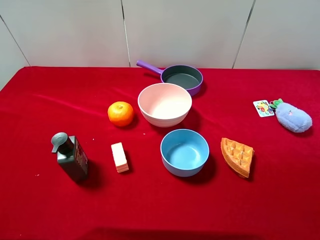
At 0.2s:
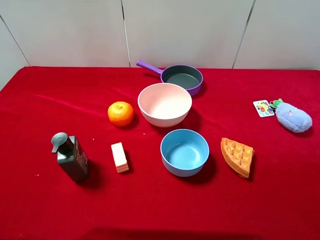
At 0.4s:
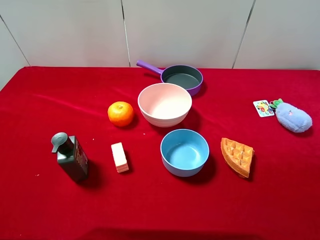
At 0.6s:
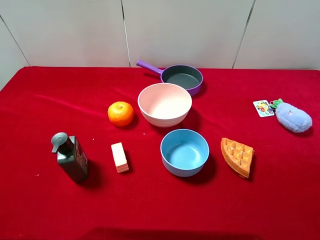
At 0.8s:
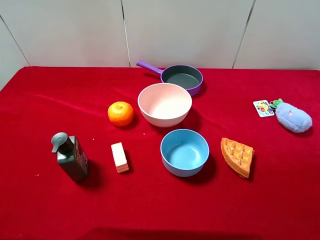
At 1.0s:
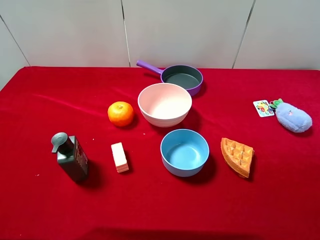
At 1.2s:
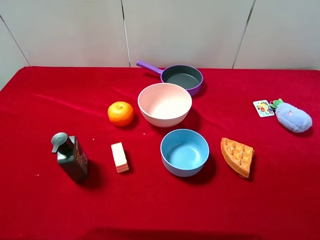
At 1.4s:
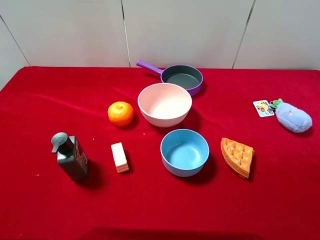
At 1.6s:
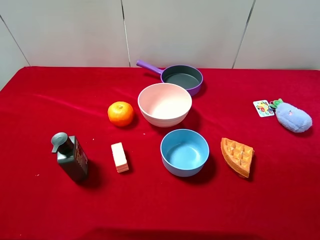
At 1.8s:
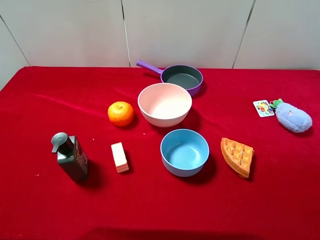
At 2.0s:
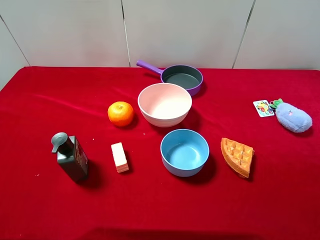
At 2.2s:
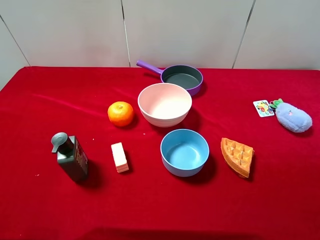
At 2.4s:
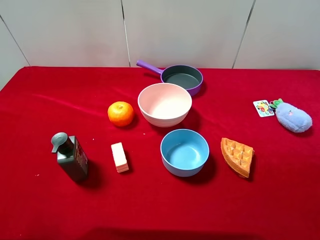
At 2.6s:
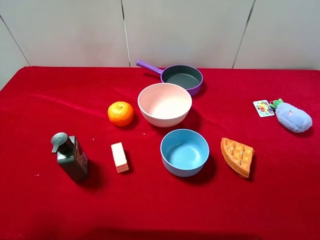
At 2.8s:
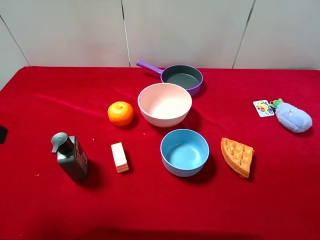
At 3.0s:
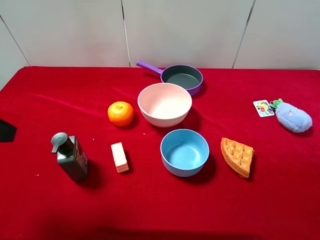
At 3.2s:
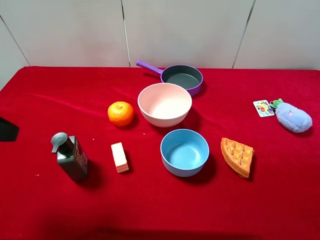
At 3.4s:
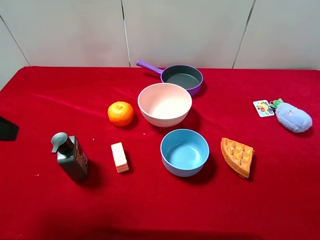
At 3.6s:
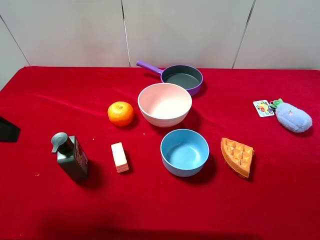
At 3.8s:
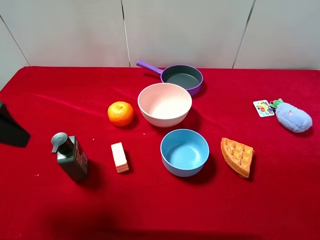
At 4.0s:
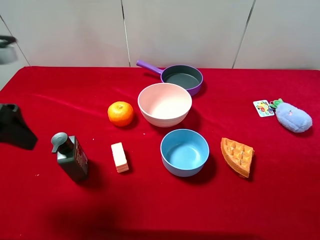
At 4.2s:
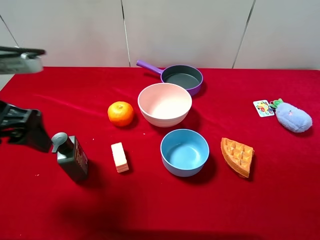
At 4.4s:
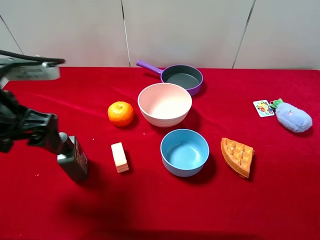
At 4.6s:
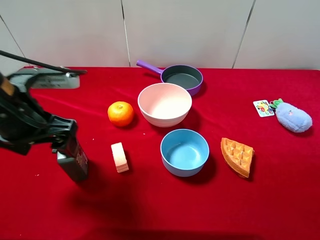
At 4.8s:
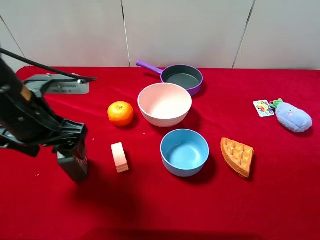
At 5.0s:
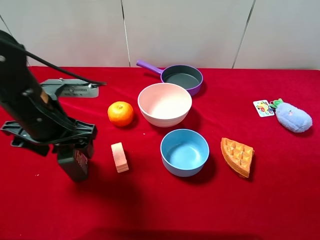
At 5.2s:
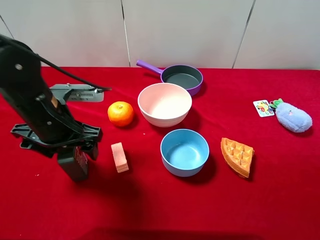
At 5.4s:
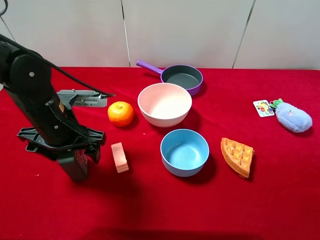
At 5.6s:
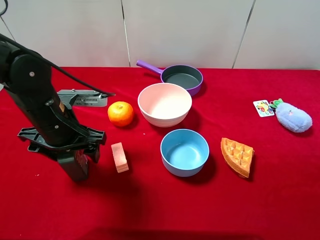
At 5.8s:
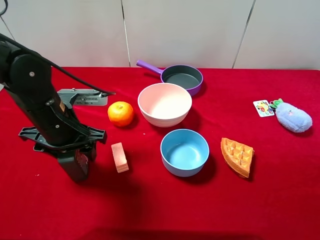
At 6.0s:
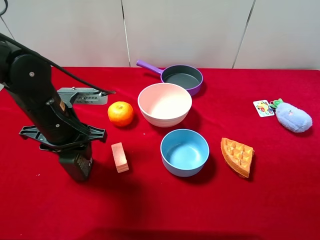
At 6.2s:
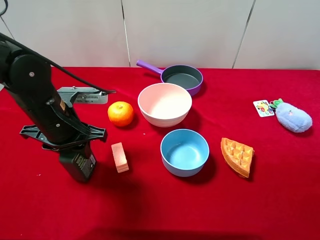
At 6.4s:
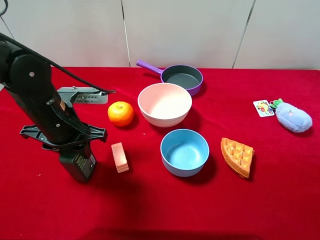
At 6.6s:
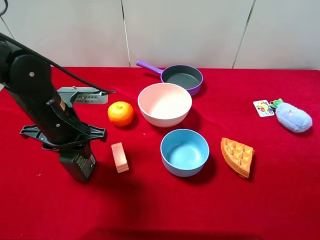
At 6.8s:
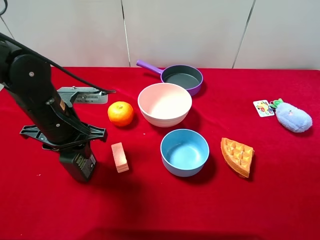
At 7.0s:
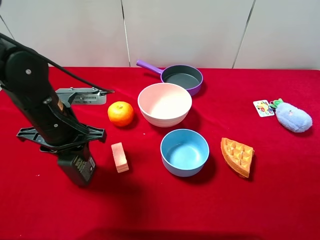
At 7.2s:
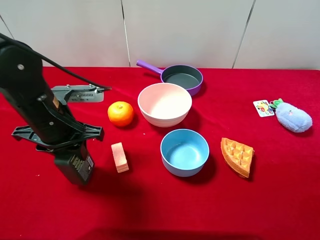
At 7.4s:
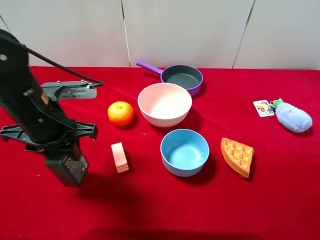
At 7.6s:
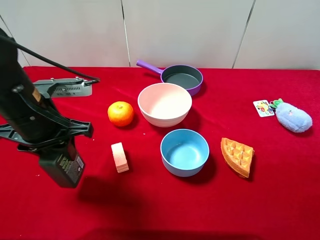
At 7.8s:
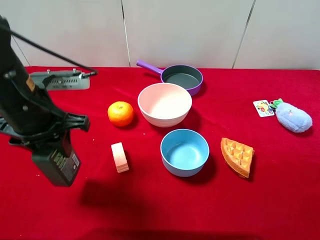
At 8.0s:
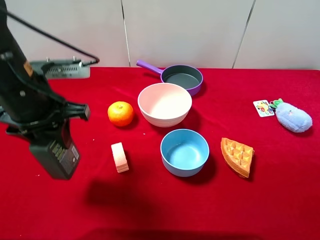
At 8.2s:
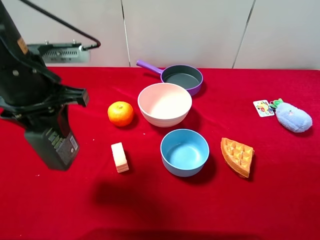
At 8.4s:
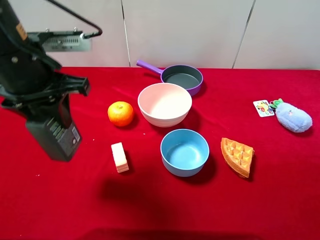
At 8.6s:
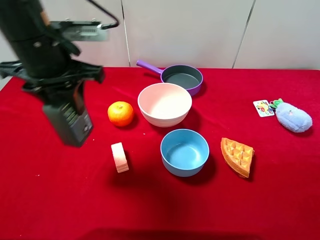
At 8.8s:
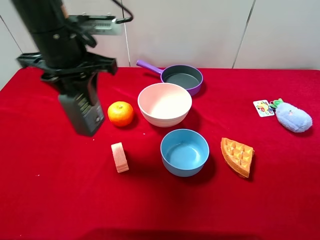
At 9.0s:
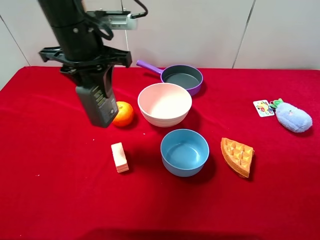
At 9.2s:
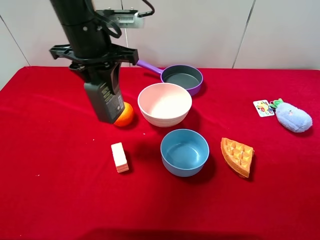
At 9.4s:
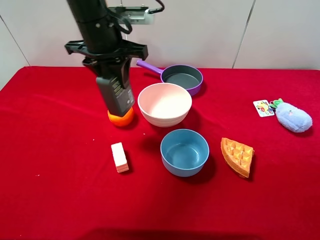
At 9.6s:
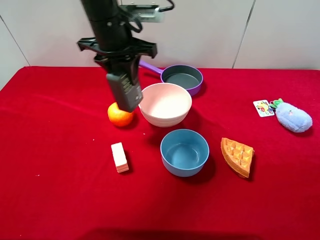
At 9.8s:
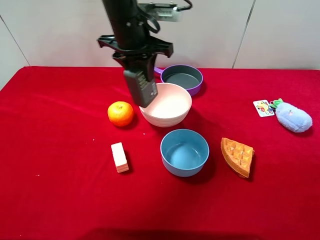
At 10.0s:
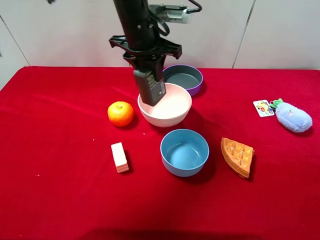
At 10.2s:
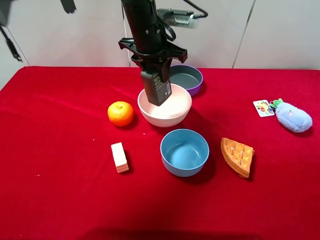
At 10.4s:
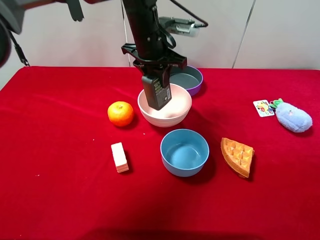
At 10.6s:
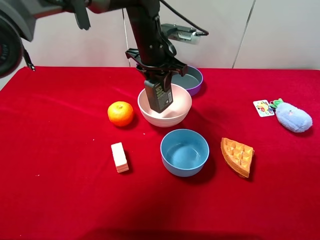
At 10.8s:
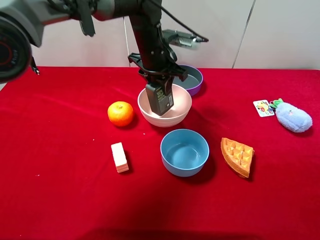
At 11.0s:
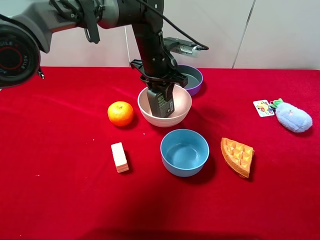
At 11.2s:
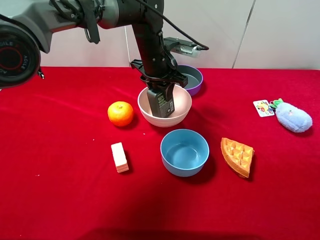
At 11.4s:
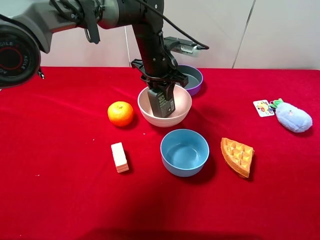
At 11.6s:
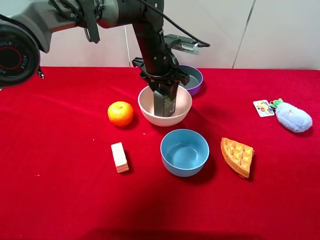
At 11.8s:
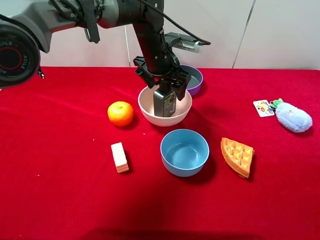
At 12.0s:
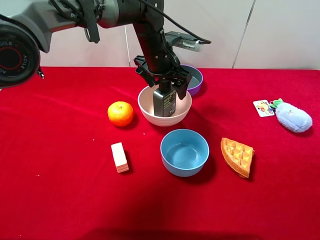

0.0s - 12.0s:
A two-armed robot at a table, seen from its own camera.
Task of the whole recording: pick up an item with a gripper and place it in a random container on the desktop.
0.0s - 1.6s: Both grippers stay about where they are.
1.6s - 3.0s: The left gripper heads forward, covering about 15 cm.
3.0s - 4.4s: The left gripper is displaced to the right and forward by about 10 cm.
4.4s - 6.0s: The left gripper travels downward and forward by some 10 cm, and closes.
6.0s - 7.6s: The left gripper shifts by approximately 5 cm.
7.6s - 9.0s: The left gripper is displaced forward, upward and to the right by roughly 15 cm.
9.0s - 10.4s: The left gripper shifts approximately 15 cm to the right, forward and downward.
10.4s - 12.0s: The left gripper opens up.

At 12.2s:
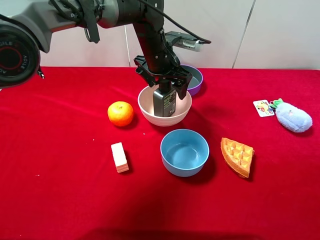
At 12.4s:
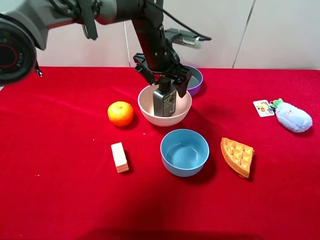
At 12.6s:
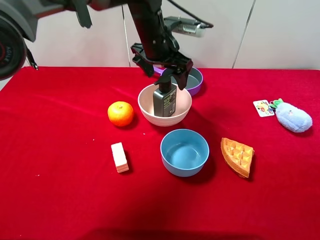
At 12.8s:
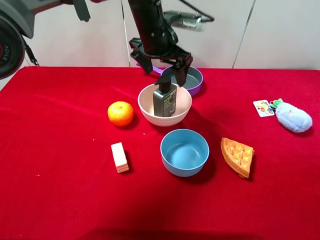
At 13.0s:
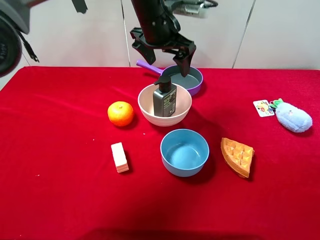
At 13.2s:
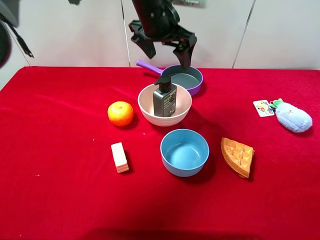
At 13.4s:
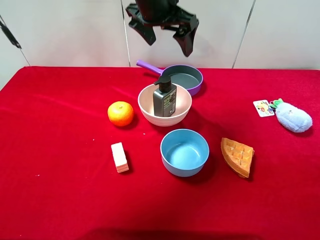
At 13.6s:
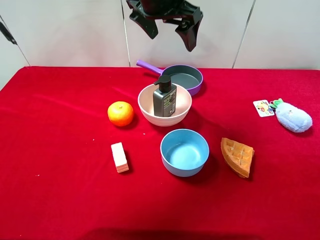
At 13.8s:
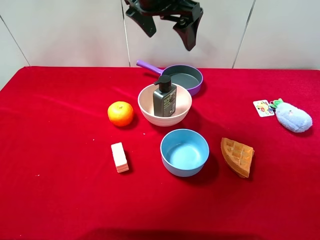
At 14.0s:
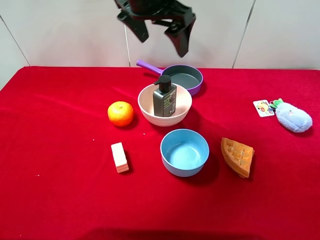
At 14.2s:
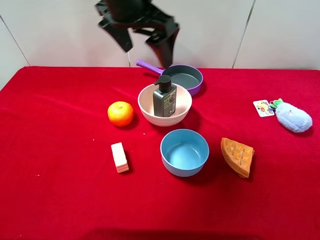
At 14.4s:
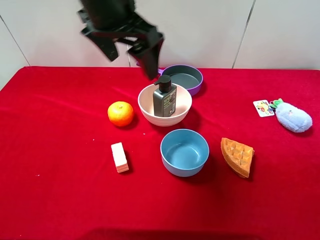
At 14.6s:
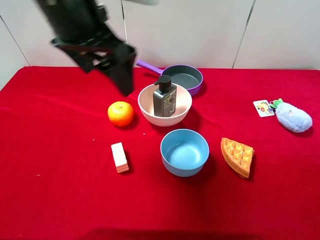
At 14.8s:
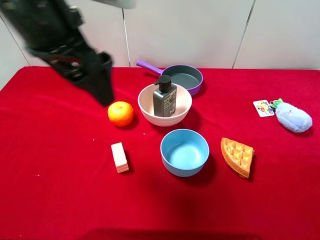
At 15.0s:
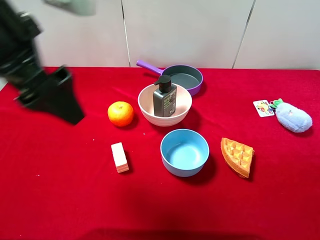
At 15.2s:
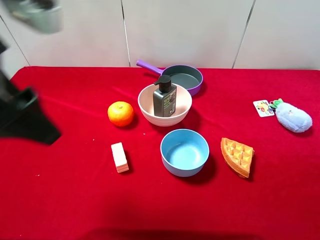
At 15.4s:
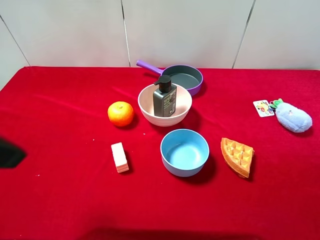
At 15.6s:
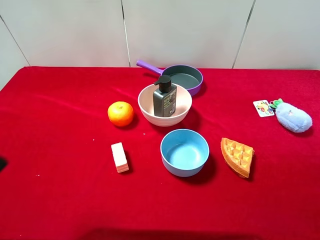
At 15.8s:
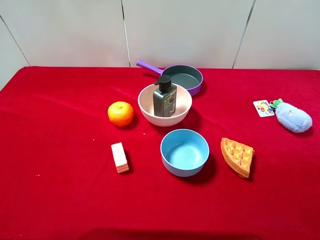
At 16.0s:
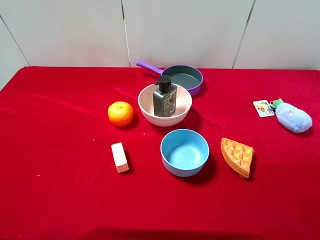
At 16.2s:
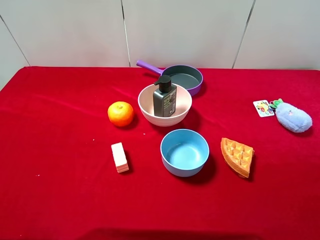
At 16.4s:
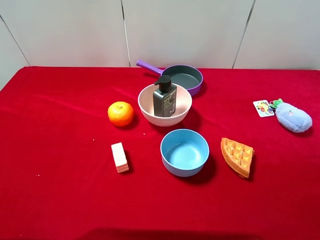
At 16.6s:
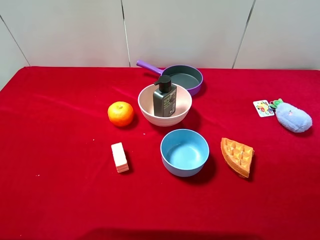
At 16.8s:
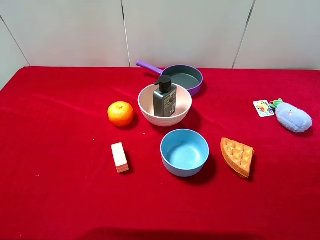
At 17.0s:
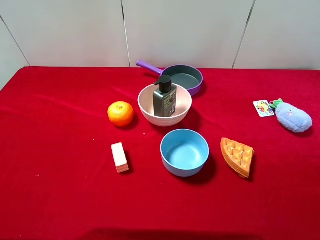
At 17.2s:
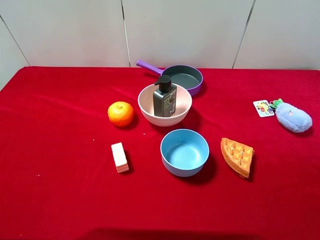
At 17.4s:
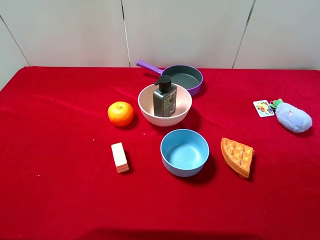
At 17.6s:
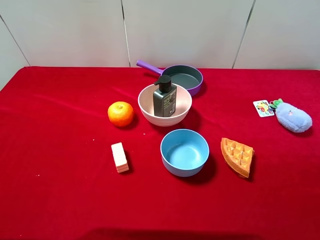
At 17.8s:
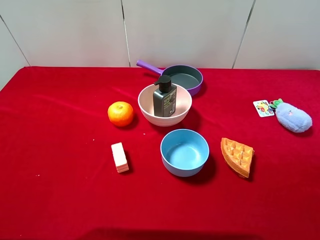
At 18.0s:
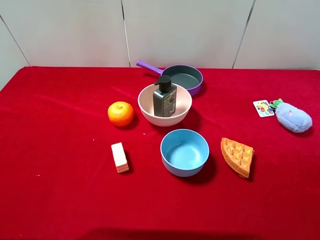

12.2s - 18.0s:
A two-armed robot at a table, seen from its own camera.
Task of the whole recording: pick up an item with a gripper and place it in a random container on the desktop.
12.2s - 13.6s: The left gripper heads upward, covering roughly 15 cm.
13.6s - 15.0s: The left gripper travels backward and to the left by roughly 25 cm.
15.0s - 16.6s: The left gripper heads backward, to the left and downward, covering roughly 25 cm.

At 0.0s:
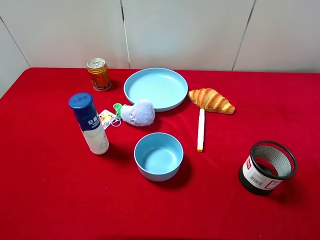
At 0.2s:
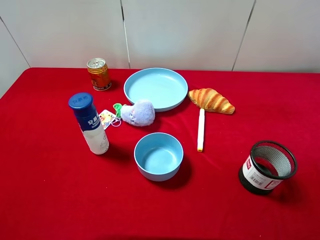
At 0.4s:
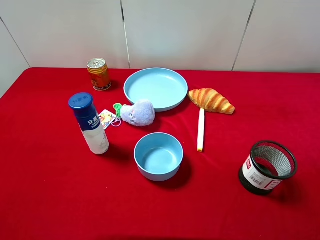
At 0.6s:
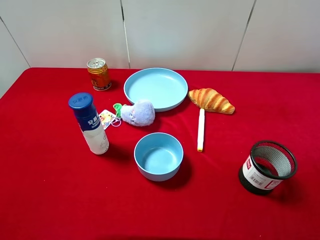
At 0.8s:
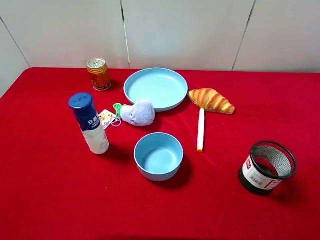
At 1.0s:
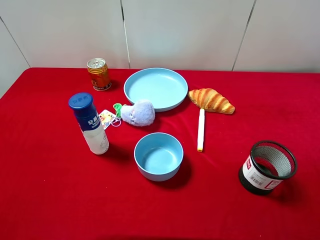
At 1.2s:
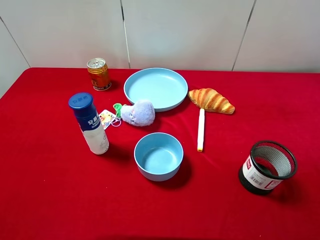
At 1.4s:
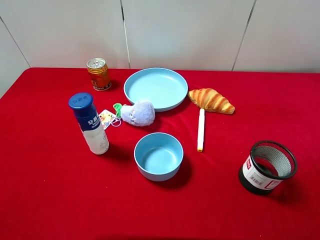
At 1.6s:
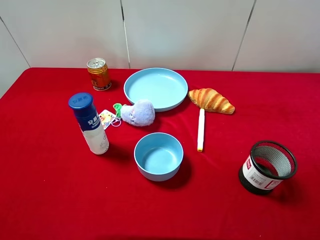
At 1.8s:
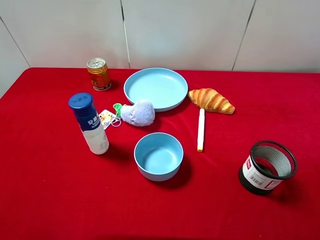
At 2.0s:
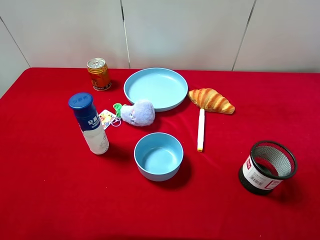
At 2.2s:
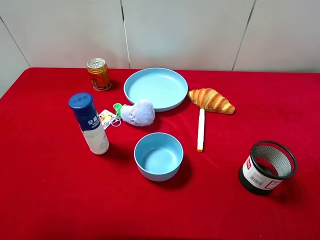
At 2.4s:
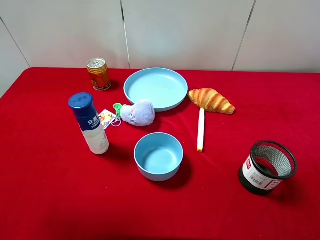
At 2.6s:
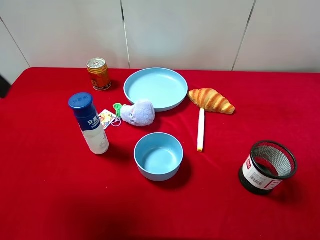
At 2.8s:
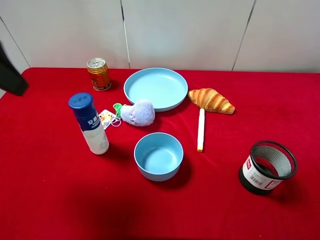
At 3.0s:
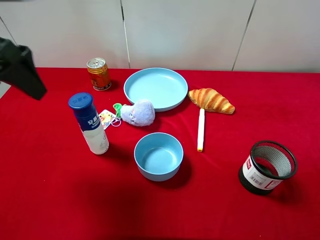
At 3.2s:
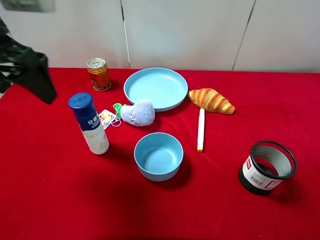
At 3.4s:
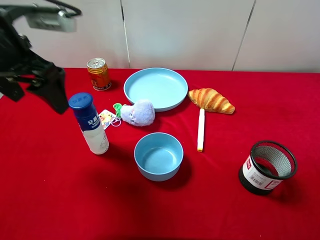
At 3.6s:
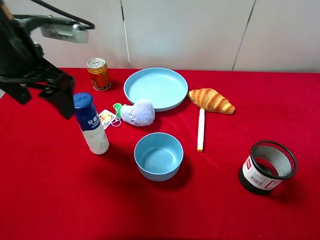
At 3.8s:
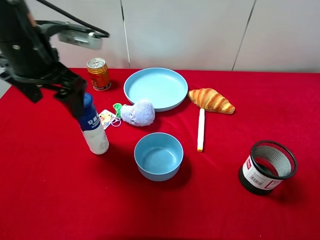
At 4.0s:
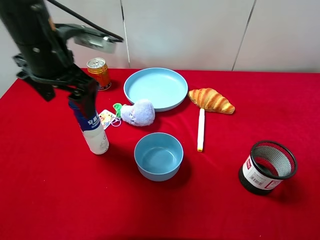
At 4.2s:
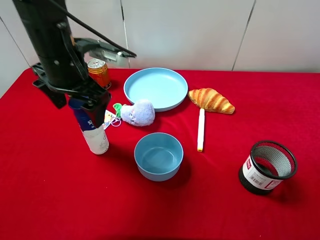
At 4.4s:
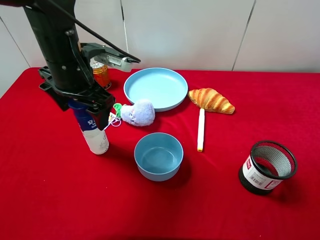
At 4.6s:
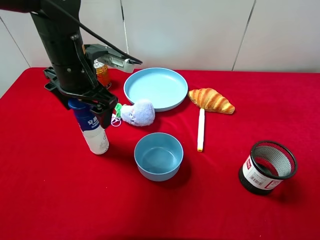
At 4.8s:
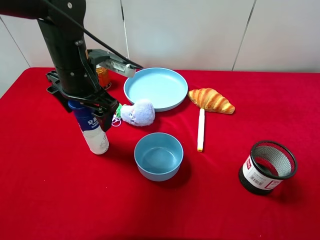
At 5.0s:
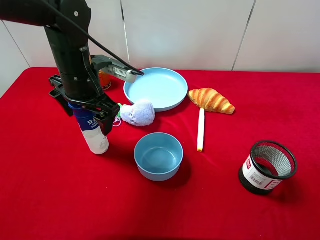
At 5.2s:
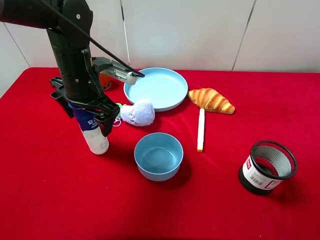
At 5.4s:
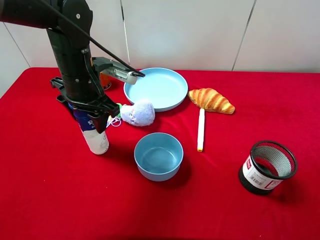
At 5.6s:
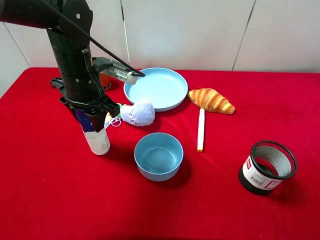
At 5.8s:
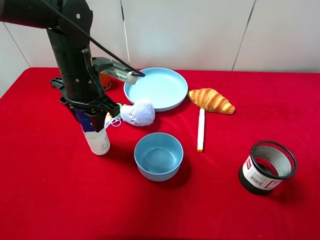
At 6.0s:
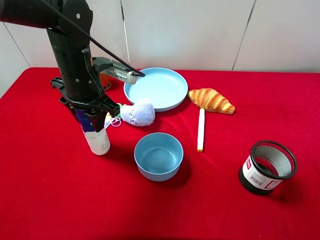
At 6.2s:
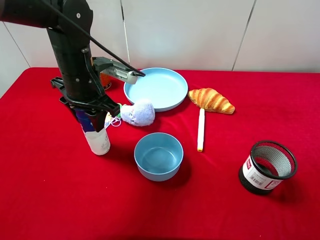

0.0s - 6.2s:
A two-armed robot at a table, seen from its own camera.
Task of the whole recording: pick up an item with a gripper and place it in a random container on the desktop.
1.6s - 3.2s: The left gripper moves forward and to the right, roughly 20 cm.
3.2s - 4.6s: The left gripper heads downward, to the right and forward, covering approximately 15 cm.
4.6s - 6.2s: The left gripper closes.
